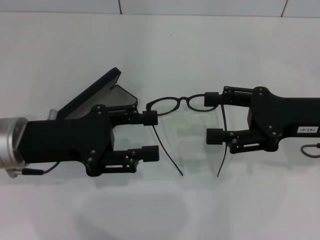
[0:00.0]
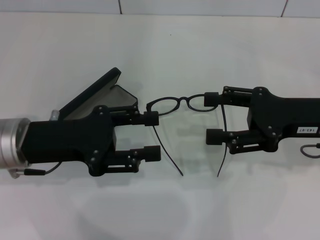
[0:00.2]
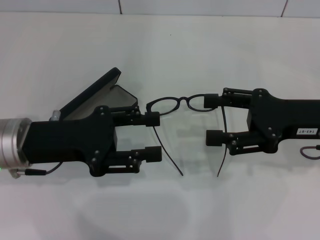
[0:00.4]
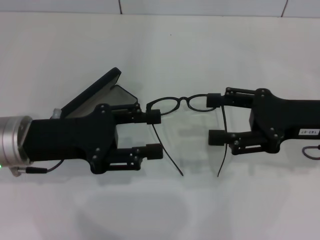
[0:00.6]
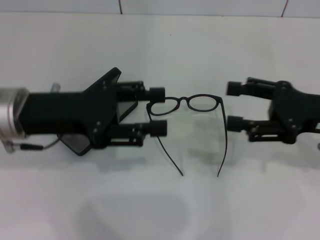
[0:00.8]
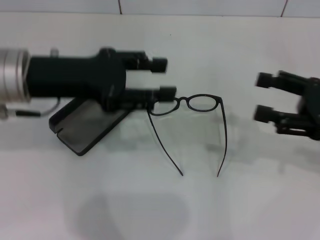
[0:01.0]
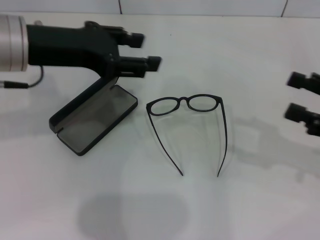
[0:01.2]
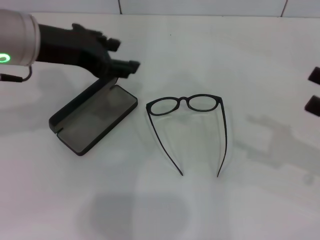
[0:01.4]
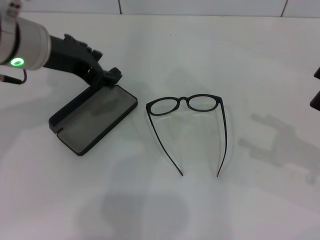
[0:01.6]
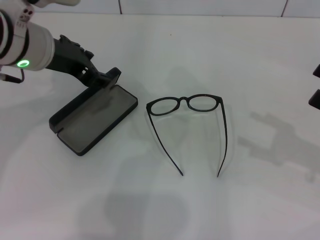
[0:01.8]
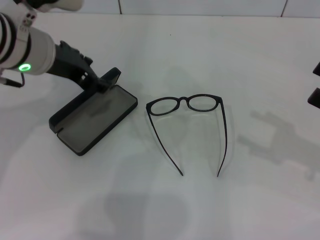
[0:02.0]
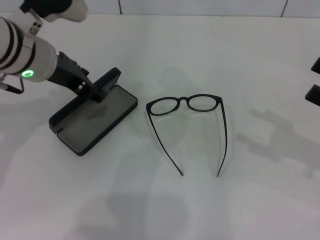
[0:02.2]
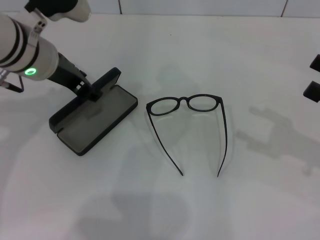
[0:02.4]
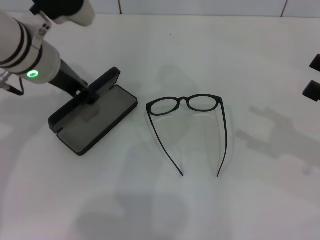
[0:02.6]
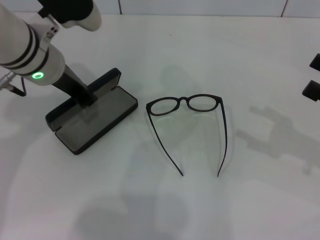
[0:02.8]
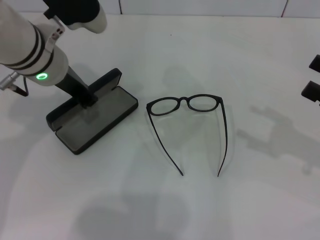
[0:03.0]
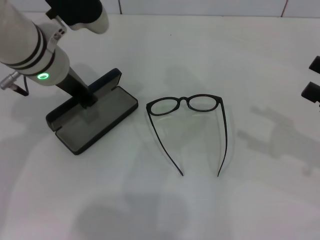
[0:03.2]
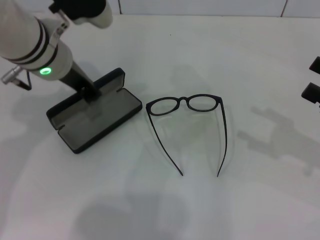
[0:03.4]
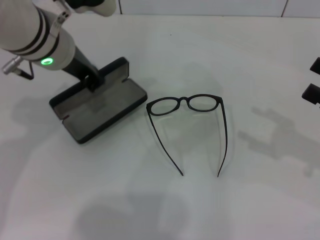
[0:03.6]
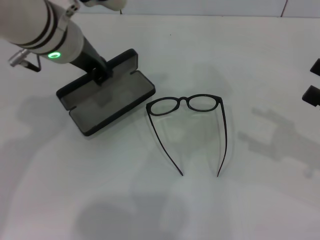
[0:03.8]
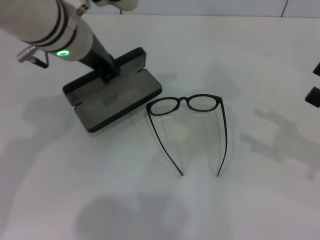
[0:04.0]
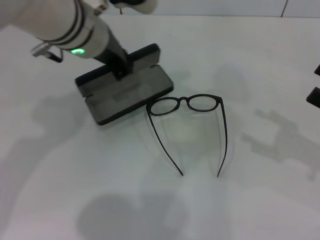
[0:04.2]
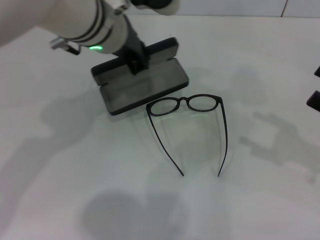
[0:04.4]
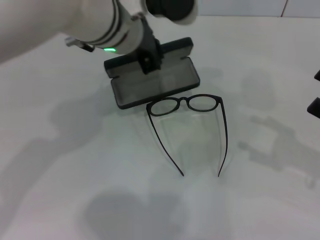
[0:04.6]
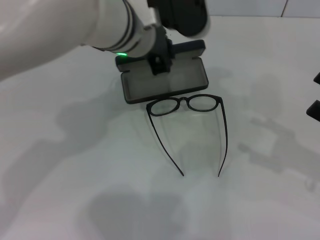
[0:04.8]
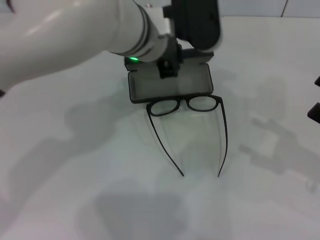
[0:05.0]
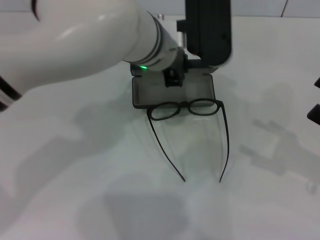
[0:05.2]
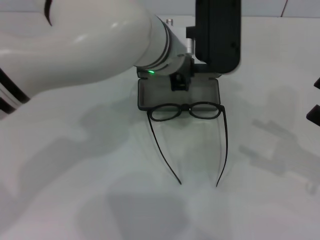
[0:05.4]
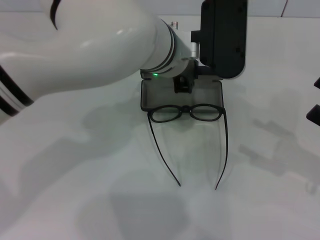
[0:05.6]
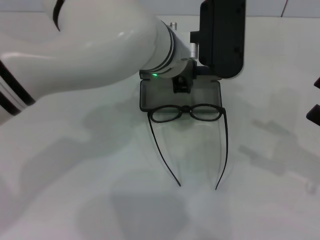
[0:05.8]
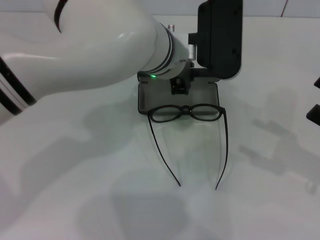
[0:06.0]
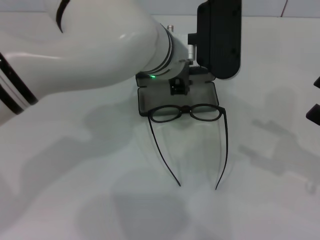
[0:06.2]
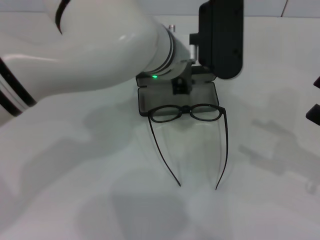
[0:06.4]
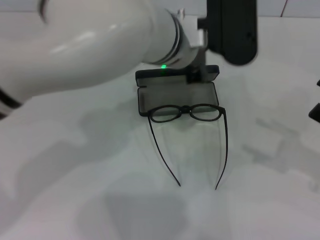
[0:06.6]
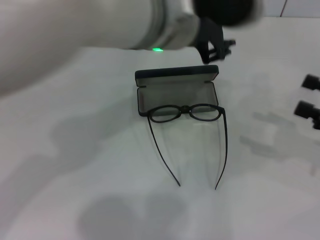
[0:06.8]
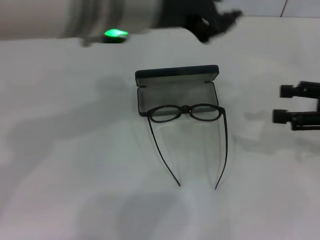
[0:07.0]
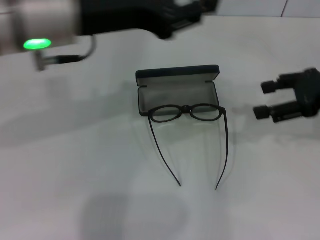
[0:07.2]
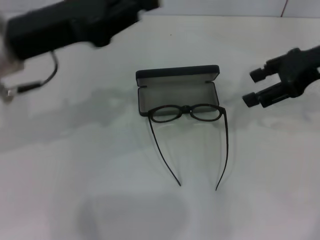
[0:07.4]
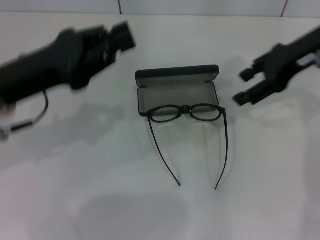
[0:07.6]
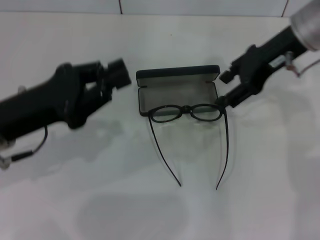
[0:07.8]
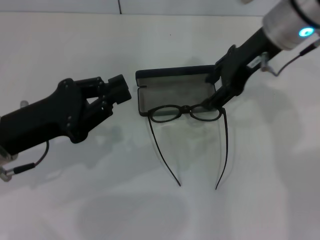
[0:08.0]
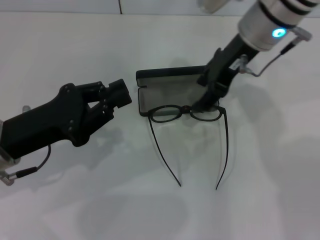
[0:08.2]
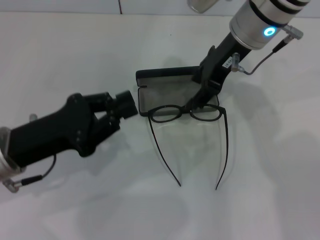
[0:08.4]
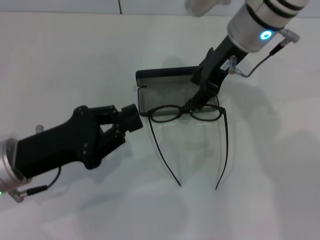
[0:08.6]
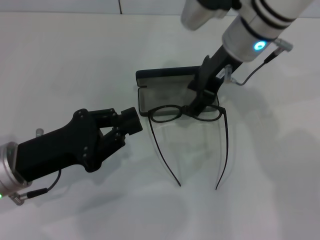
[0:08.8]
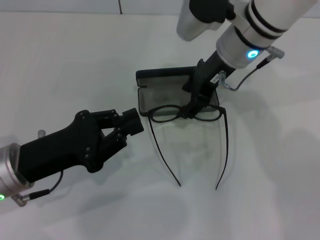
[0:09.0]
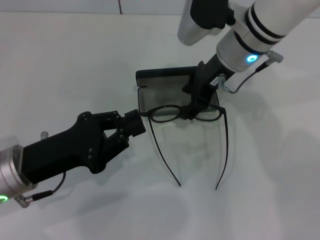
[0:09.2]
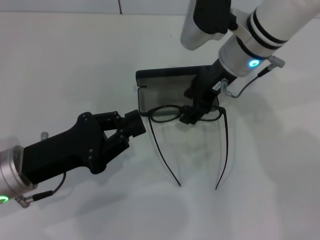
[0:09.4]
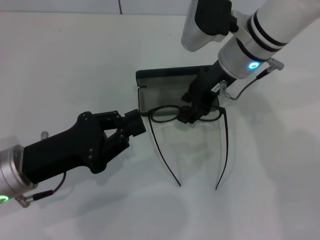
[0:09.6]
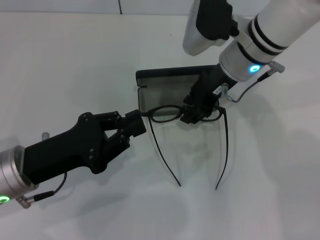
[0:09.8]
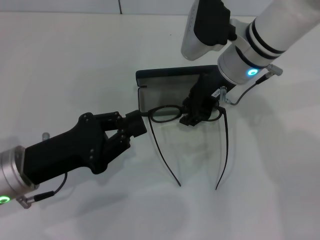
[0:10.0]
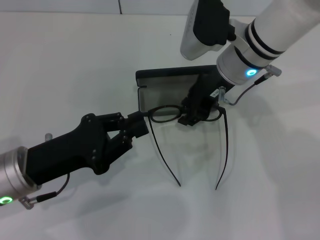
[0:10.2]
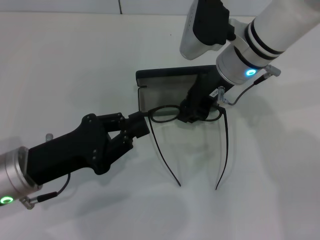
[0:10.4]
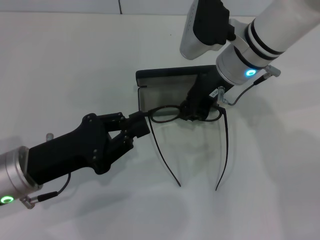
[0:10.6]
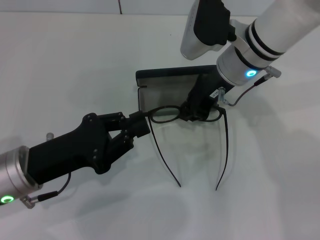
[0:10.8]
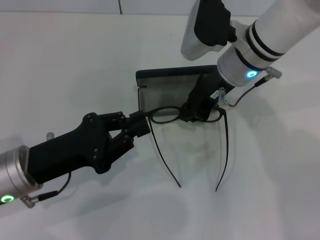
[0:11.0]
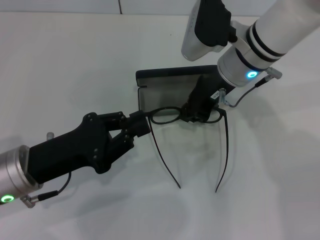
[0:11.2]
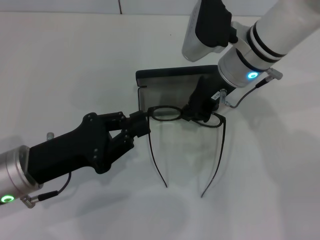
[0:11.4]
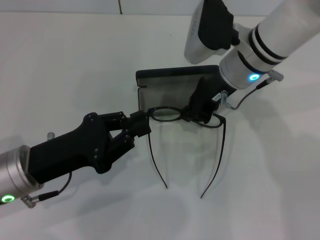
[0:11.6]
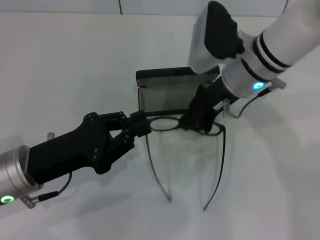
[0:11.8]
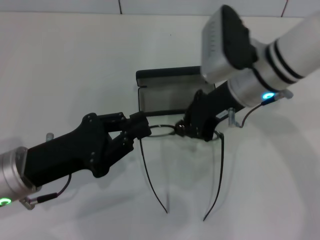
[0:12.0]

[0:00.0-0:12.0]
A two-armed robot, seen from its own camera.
Step, 0:00.0 to 0:02.6: Grab the glasses case with your left hand.
Step, 0:02.8 to 0:06.2: Place the glasses case in the center of the table with your left hand.
Step, 0:06.4 to 0:11.4: Lift the glasses with your right hand.
0:00.0 to 0:01.6: The right gripper heads to the right and backward, covering roughly 10 cm. The left gripper heads upward and forward, covering some 10 cm.
0:01.6 to 0:03.0: The left gripper closes.
0:03.0 to 0:04.4: The left gripper moves to the right, about 10 cm.
0:04.4 to 0:06.0: The left gripper heads to the right, covering some 5 cm.
0:06.0 to 0:07.6: The right gripper moves forward, upward and to the left, about 25 cm. The left gripper is displaced to the left by approximately 20 cm.
0:07.6 to 0:09.0: The left gripper is displaced downward and backward by approximately 10 cm; the right gripper goes roughly 15 cm to the left.
0:09.0 to 0:10.4: The grippers stay close to where they were, moving slightly.
0:10.4 to 0:12.0: The right gripper closes.

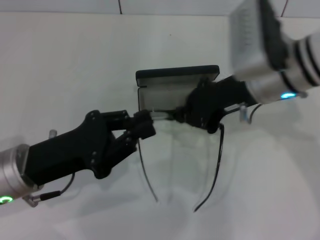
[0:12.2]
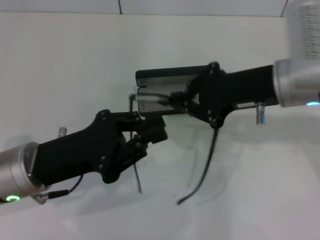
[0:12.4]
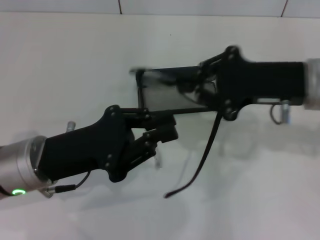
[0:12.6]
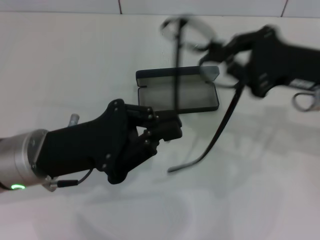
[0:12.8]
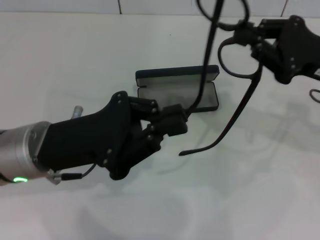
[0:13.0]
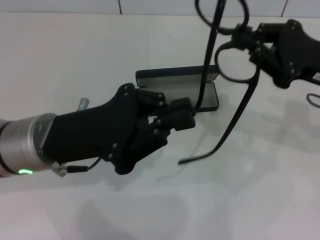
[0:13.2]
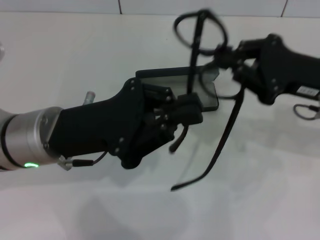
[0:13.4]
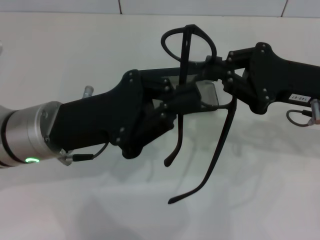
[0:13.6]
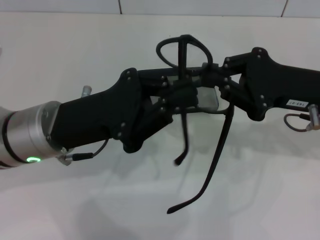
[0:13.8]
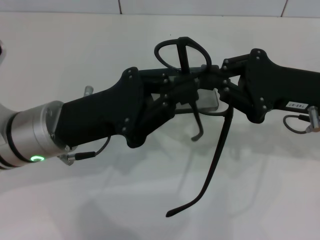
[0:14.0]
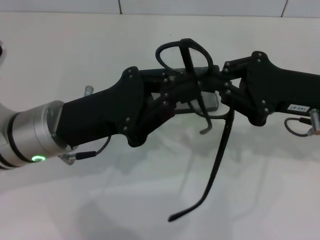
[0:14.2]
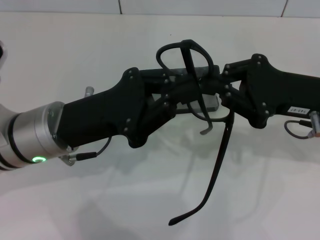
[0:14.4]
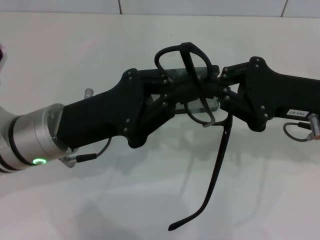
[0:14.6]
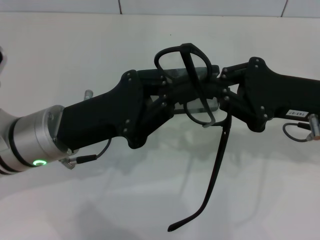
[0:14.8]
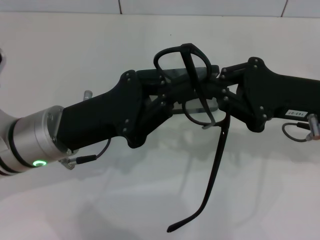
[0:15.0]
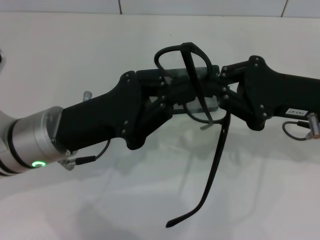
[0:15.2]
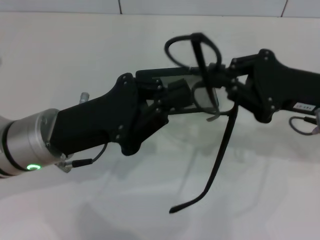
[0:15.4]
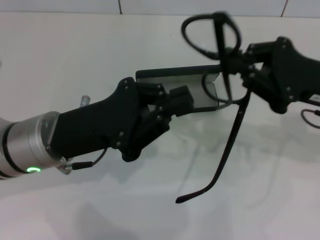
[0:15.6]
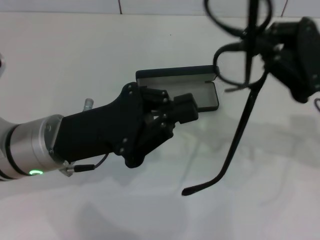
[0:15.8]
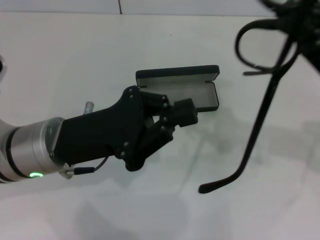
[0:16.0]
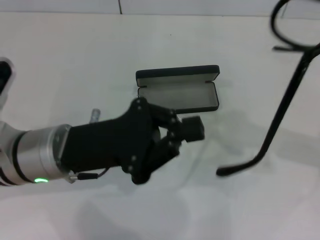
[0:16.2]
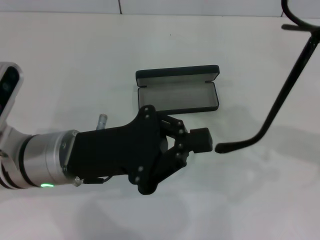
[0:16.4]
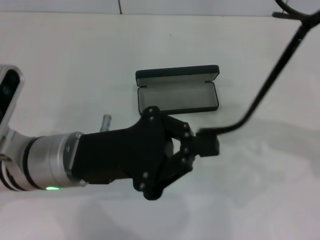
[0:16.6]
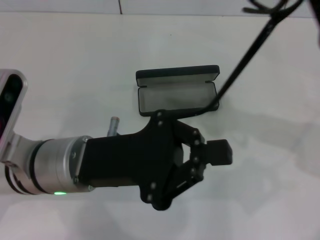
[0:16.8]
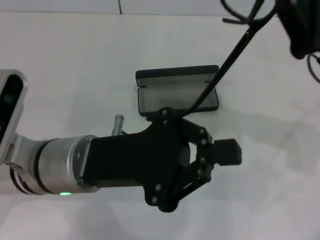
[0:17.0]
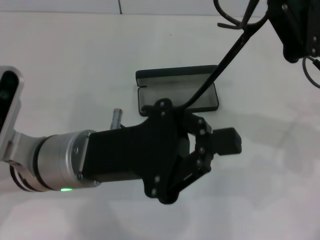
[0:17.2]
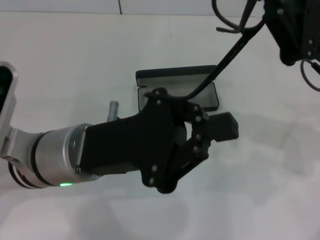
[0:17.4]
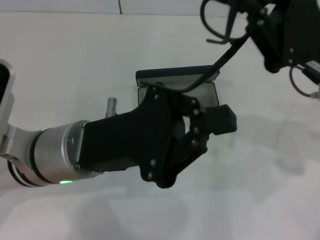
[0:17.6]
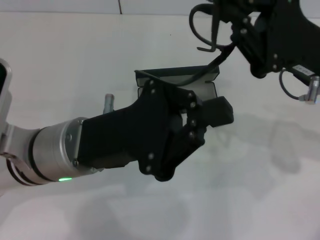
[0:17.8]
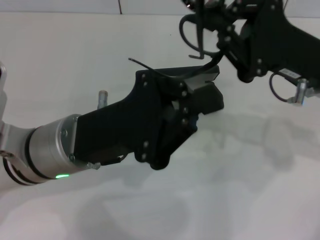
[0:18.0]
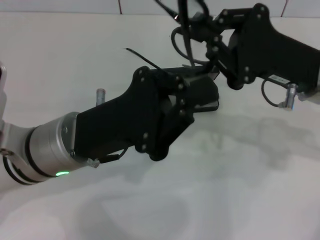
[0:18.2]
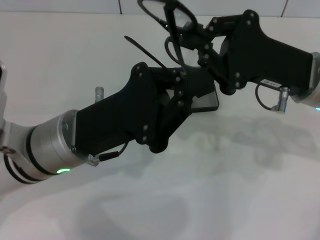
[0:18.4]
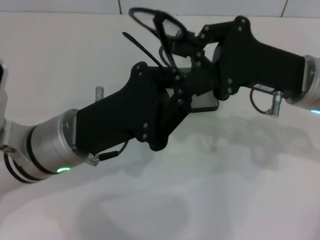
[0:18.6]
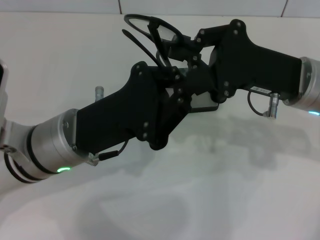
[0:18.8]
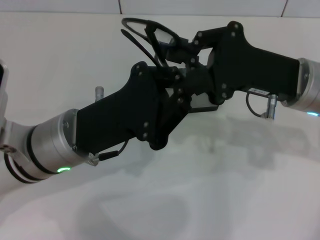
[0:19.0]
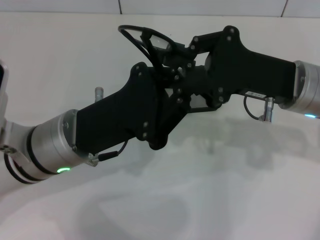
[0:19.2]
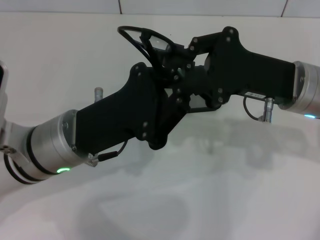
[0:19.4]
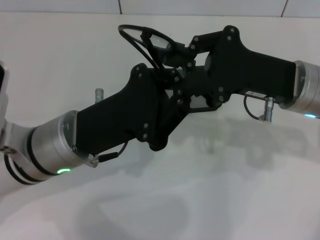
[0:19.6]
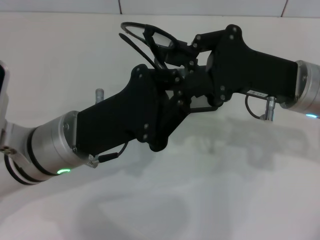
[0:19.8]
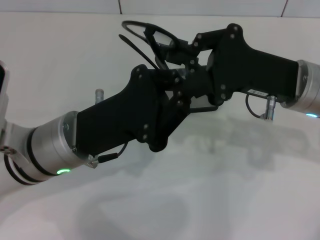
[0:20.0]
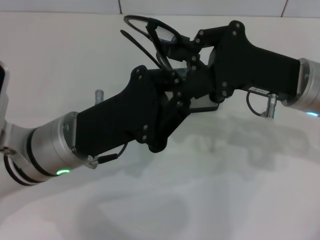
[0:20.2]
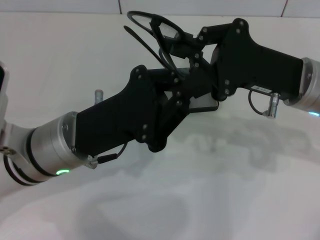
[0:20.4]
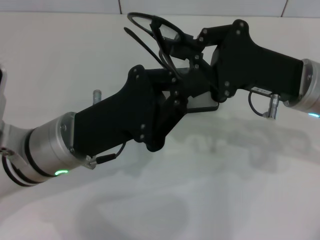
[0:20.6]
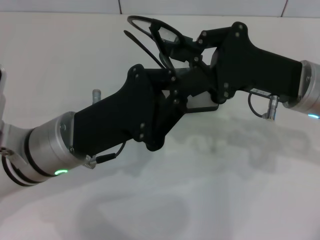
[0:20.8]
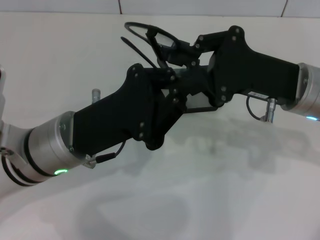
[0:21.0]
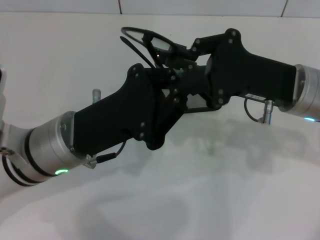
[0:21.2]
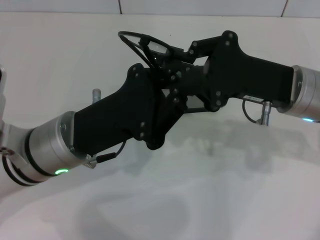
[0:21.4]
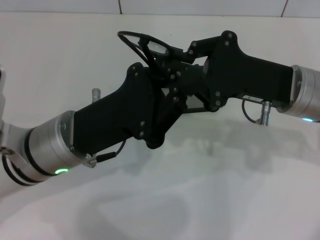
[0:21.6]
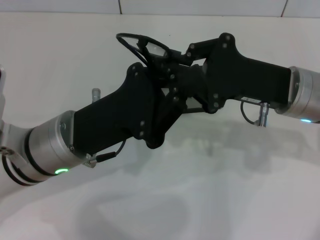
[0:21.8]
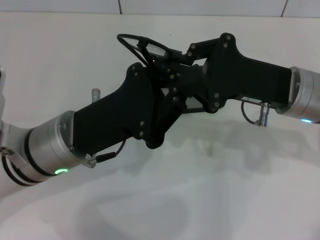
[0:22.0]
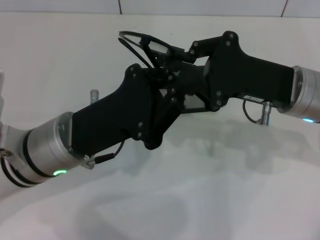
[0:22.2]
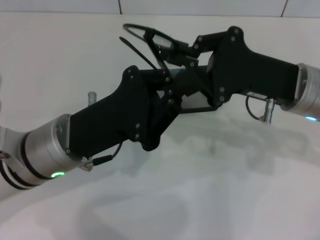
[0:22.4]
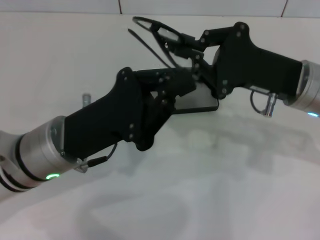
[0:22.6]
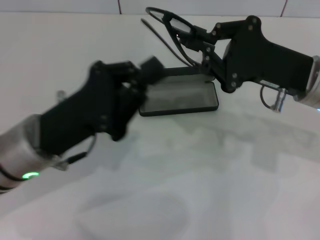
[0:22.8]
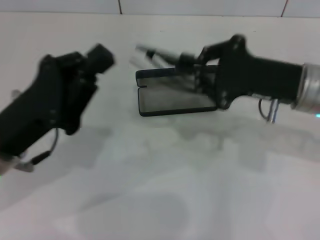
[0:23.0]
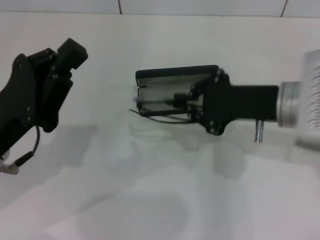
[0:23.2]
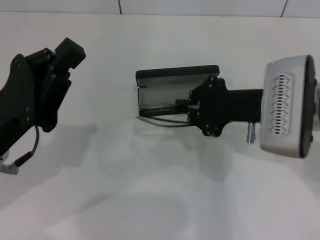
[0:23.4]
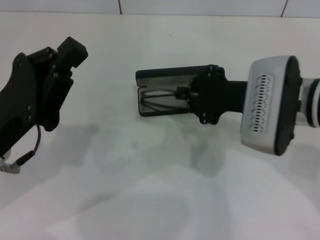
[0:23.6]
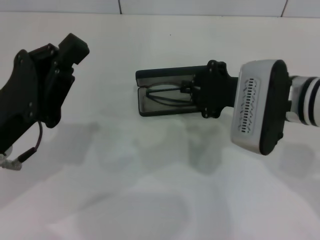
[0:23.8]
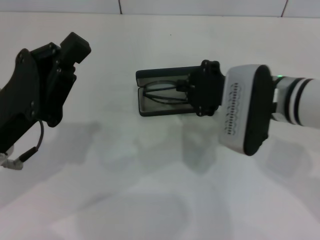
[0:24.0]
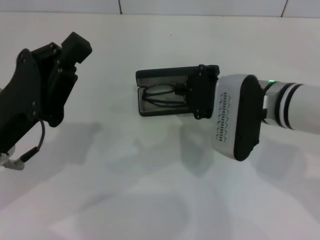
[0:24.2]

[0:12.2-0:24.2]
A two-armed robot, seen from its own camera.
Step, 0:12.2 to 0:20.2: Fold the frame with your left hand.
0:12.2 to 0:13.8: The left gripper shifts by about 5 cm, while the right gripper is displaced to the right by about 10 cm.
0:13.8 to 0:15.2: Both grippers stay put.
0:15.2 to 0:16.6: The right gripper shifts by roughly 5 cm.
0:16.6 to 0:18.2: The right gripper heads to the left, covering approximately 5 cm.
0:18.2 to 0:19.8: The grippers stay close to where they were, moving slightly.
0:19.8 to 0:21.2: Both grippers stay put.
0:21.2 to 0:22.6: There are only small adjustments of the grippers.
0:22.6 to 0:24.2: Both grippers move to the left, approximately 5 cm.
